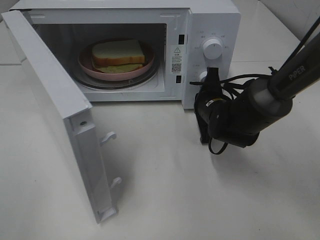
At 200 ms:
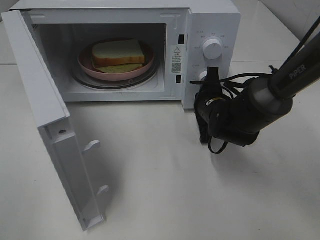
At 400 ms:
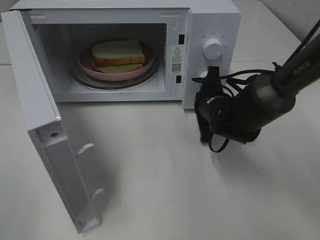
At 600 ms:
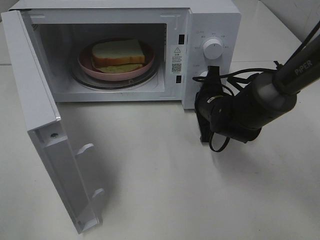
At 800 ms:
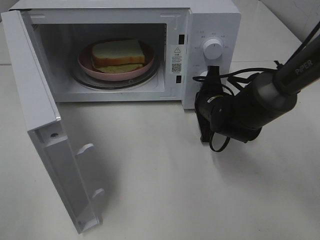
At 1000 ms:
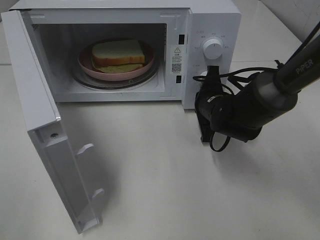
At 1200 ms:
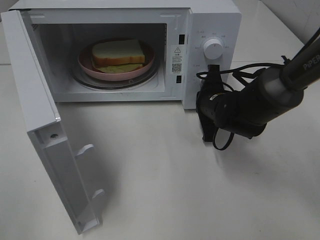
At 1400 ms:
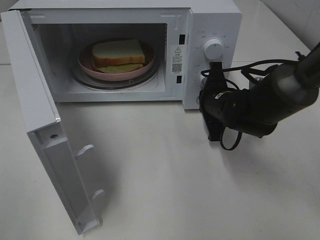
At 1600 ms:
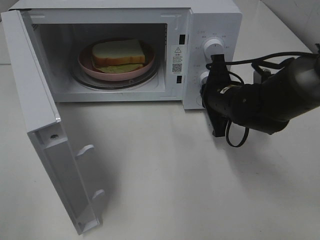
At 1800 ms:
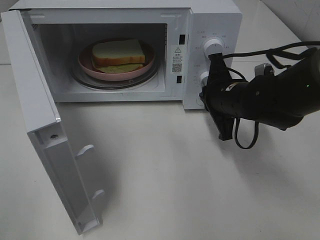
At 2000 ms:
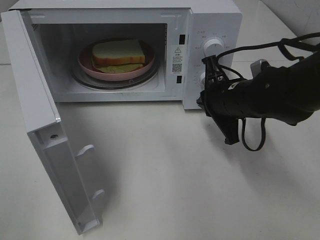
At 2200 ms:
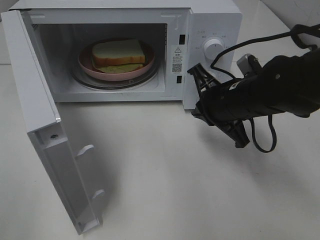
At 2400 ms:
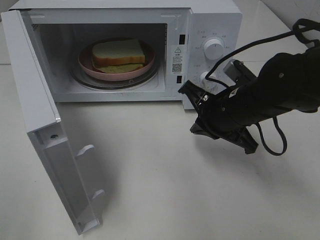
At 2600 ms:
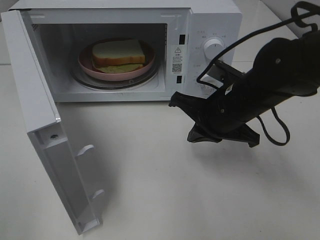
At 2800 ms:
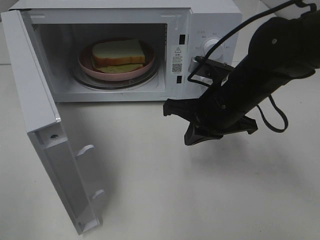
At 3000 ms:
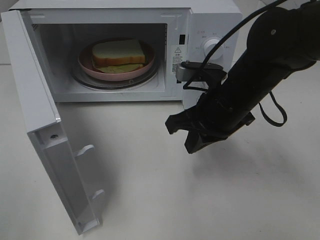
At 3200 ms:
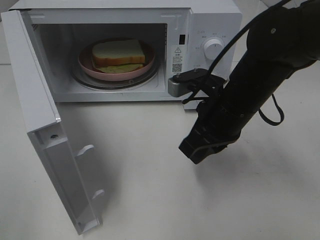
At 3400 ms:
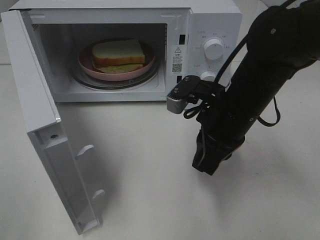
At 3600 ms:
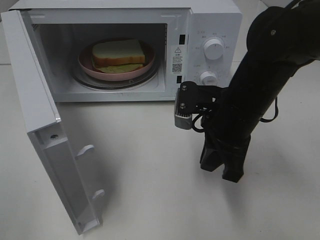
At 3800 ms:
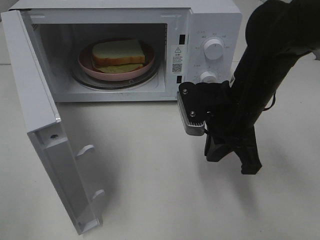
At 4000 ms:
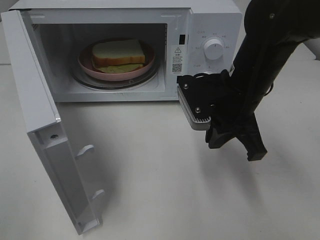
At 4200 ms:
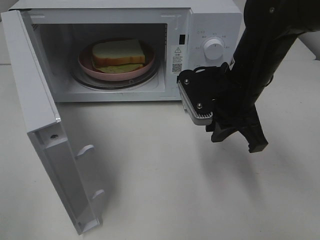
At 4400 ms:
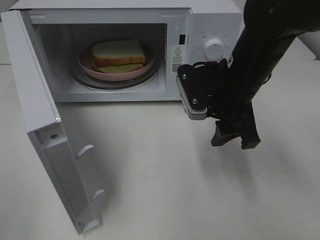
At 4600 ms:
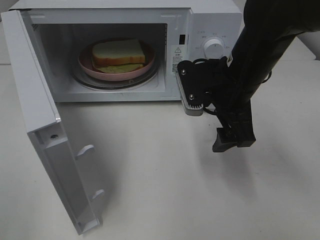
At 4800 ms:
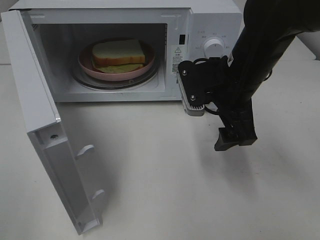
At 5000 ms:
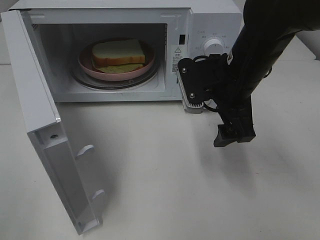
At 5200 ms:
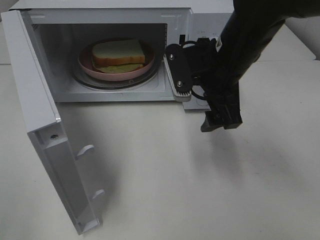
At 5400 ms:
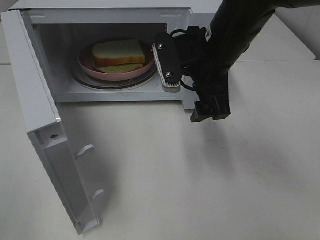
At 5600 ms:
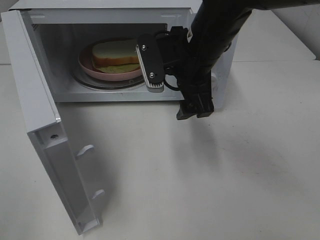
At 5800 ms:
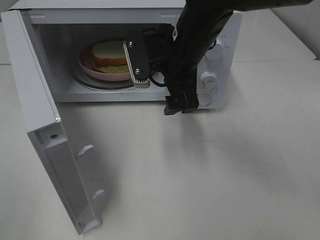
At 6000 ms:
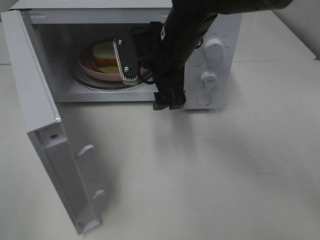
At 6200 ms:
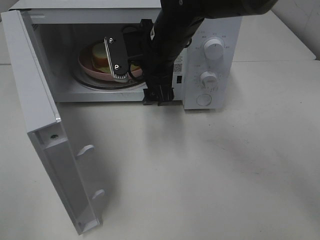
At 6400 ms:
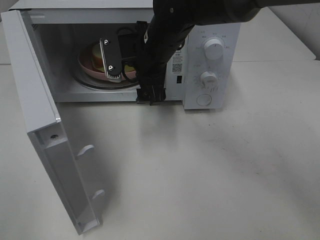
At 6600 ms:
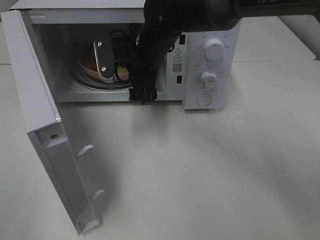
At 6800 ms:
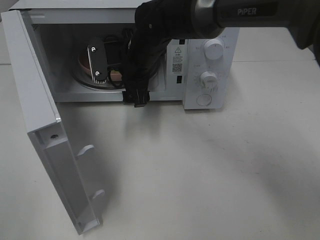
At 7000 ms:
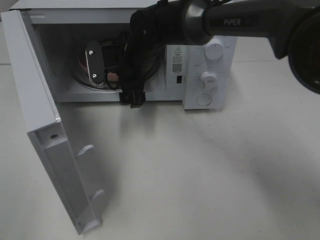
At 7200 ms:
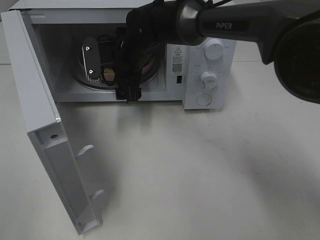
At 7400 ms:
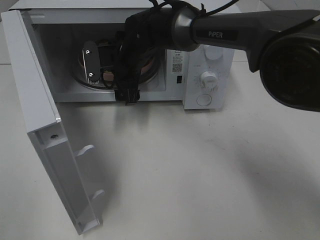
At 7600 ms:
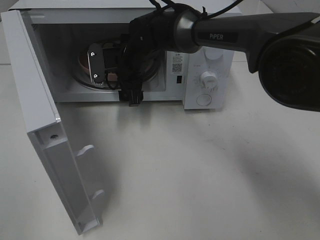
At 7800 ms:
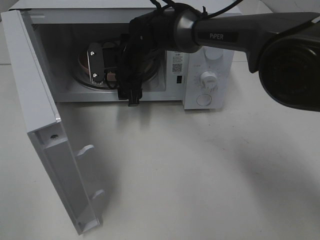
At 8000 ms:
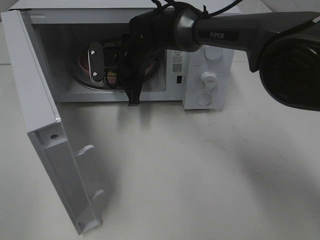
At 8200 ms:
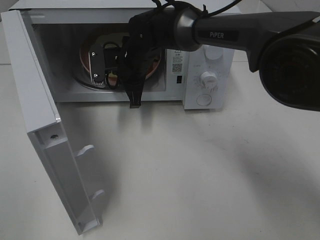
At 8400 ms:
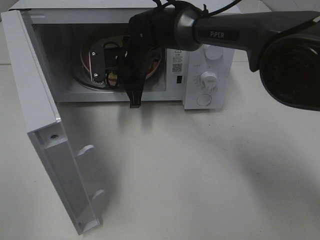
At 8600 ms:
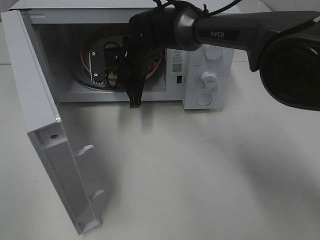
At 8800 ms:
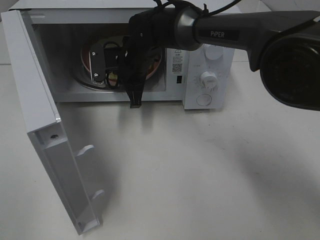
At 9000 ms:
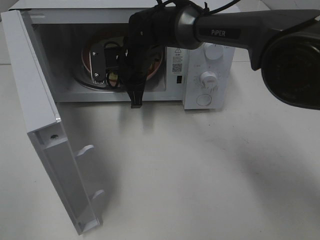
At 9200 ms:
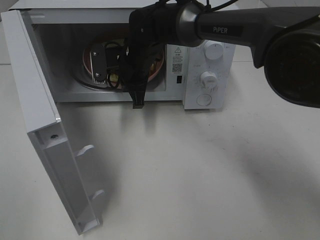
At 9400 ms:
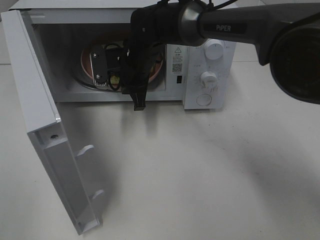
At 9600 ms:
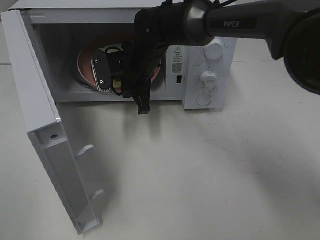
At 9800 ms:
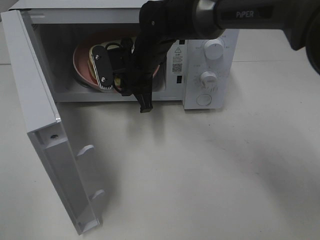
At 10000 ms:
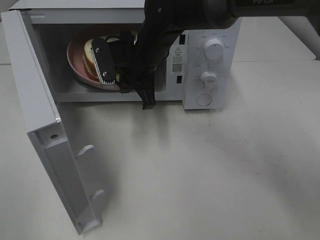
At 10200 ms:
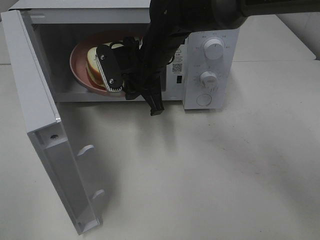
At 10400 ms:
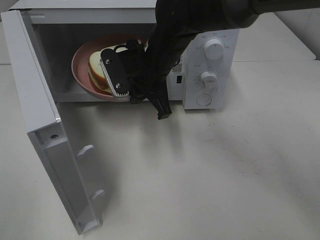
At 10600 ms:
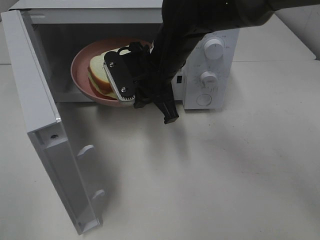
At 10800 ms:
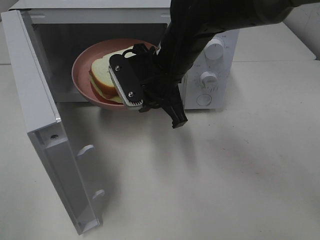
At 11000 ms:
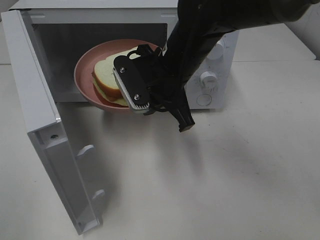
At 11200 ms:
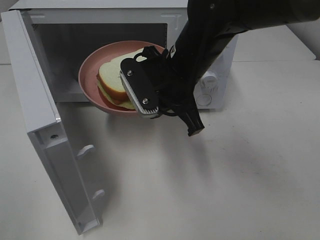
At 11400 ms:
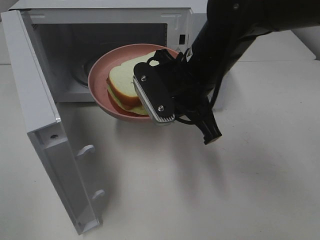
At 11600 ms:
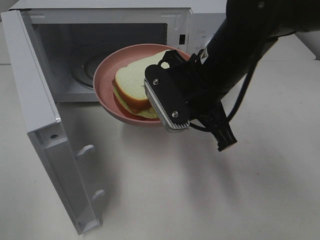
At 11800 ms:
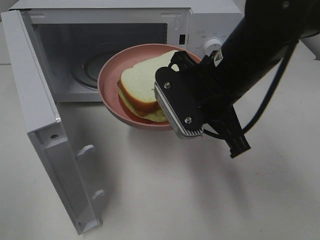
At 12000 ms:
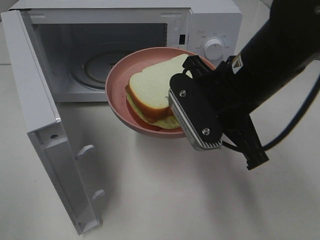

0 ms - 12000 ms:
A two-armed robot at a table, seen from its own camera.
Task of the whole recording: Heat Sandwich.
Step, 1800 ms - 8600 ms: Right hand: grab the plate with the sandwich.
0 ms - 1600 ms: The right gripper shifts by approximately 5 cm.
1600 ms - 3000 ms: The right gripper moves backward and upward, approximately 10 cm.
3000 ms - 4400 ms: The right gripper opens.
4400 ms - 6000 ms: The right gripper heads to the left and forward, covering about 10 cm.
6000 ms - 7600 ms: The right gripper moves forward, downward and to the left, roughly 15 cm.
7600 ms - 9000 ms: The right gripper closes up.
9000 ms - 10400 ms: The right gripper travels backward by some 5 cm.
10400 ms - 12000 ms: The right gripper moves backward and to the right, some 15 cm.

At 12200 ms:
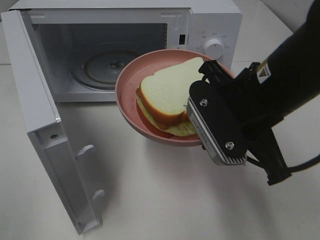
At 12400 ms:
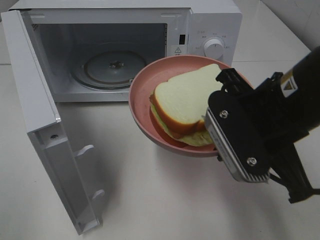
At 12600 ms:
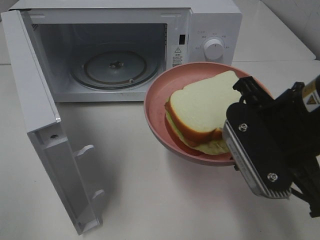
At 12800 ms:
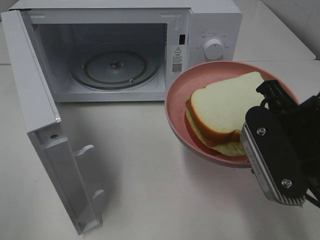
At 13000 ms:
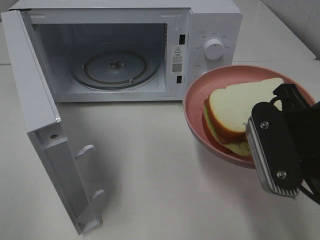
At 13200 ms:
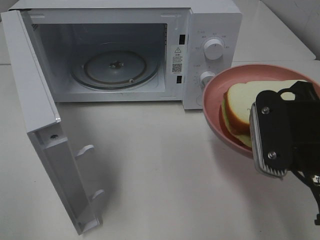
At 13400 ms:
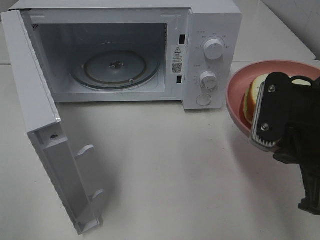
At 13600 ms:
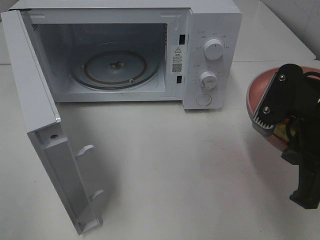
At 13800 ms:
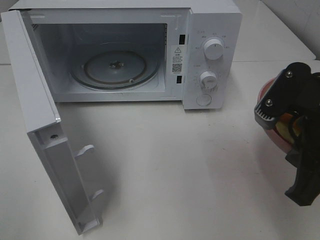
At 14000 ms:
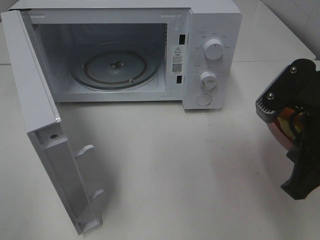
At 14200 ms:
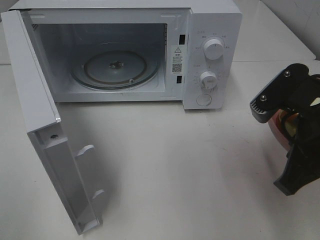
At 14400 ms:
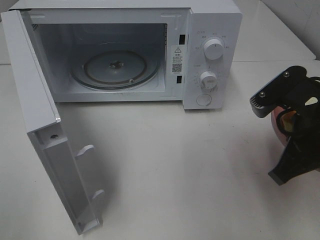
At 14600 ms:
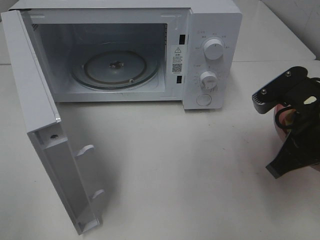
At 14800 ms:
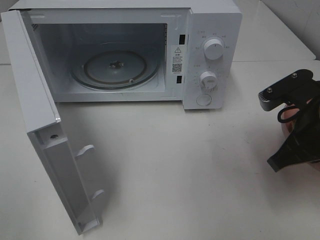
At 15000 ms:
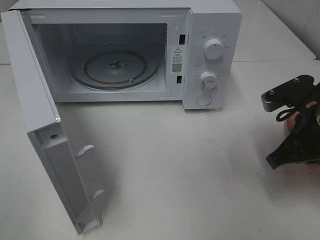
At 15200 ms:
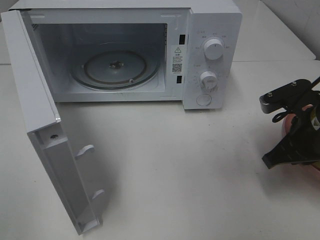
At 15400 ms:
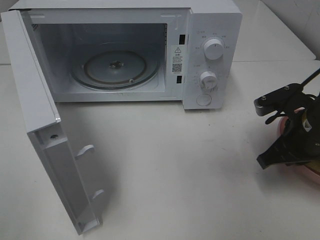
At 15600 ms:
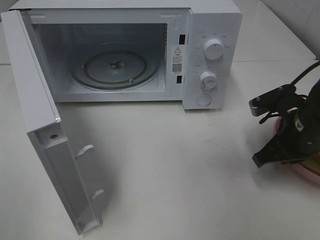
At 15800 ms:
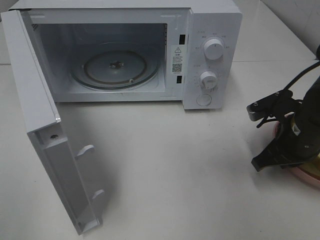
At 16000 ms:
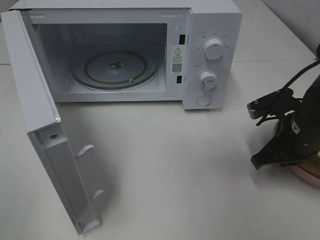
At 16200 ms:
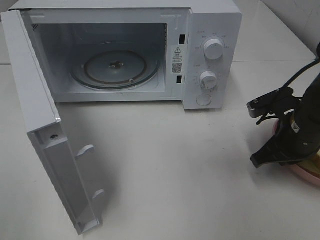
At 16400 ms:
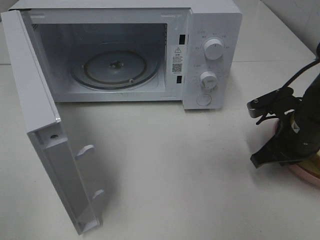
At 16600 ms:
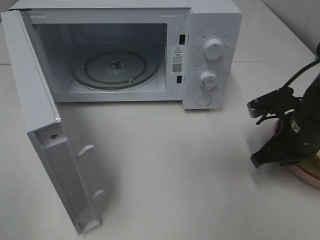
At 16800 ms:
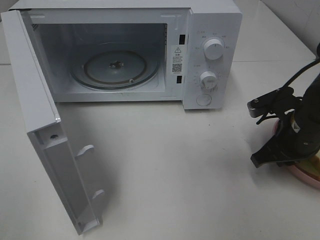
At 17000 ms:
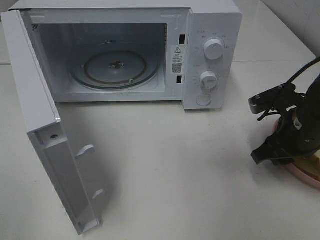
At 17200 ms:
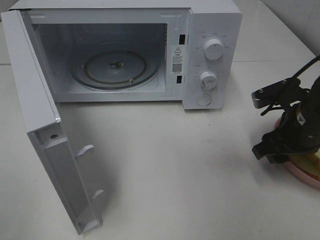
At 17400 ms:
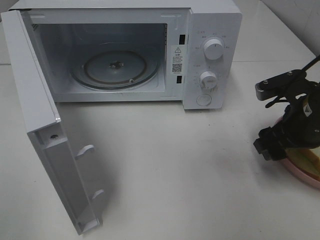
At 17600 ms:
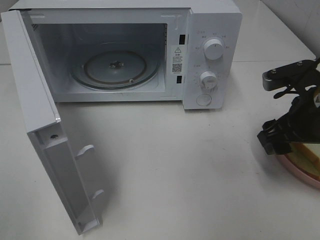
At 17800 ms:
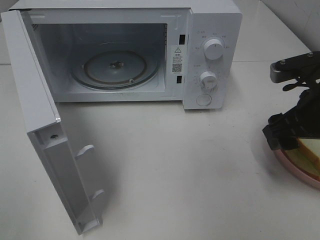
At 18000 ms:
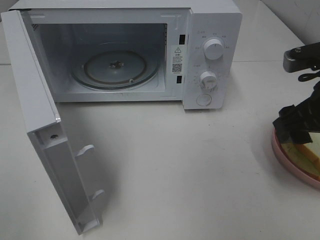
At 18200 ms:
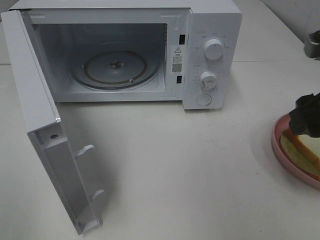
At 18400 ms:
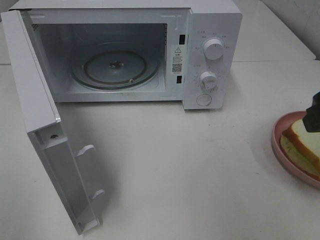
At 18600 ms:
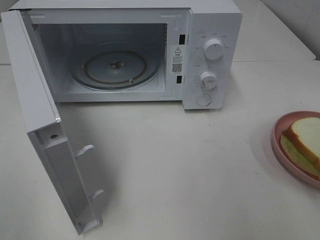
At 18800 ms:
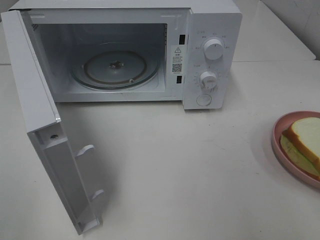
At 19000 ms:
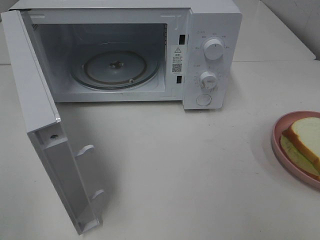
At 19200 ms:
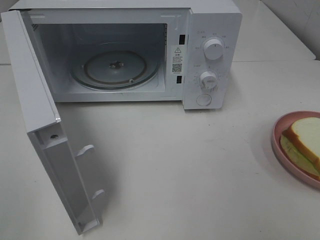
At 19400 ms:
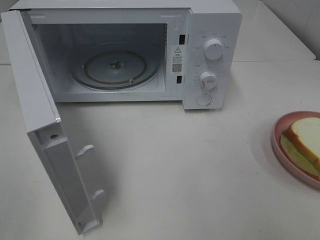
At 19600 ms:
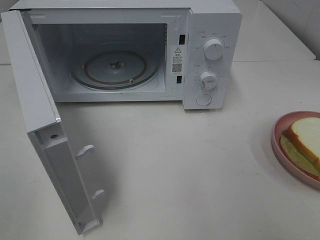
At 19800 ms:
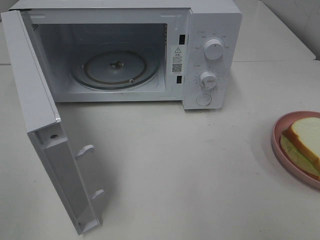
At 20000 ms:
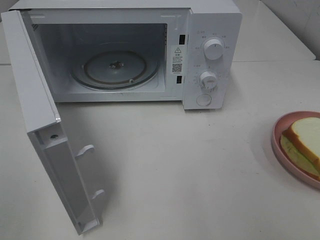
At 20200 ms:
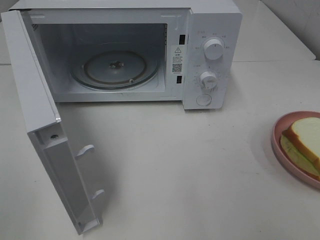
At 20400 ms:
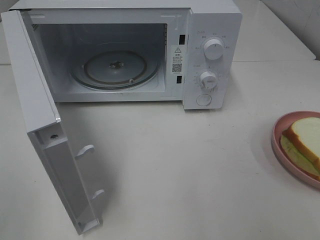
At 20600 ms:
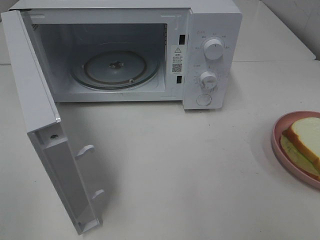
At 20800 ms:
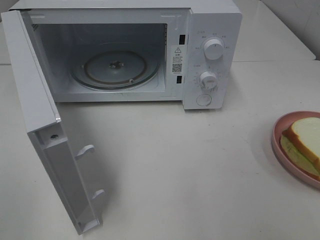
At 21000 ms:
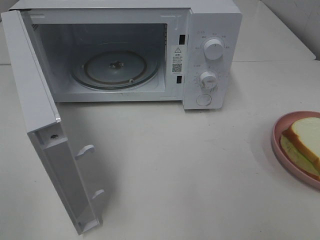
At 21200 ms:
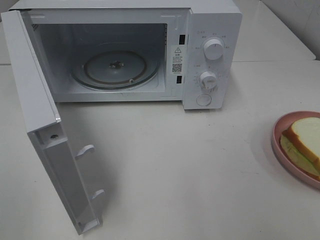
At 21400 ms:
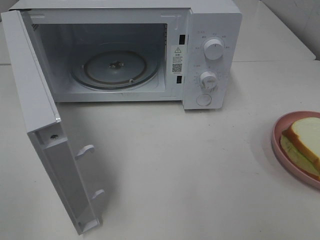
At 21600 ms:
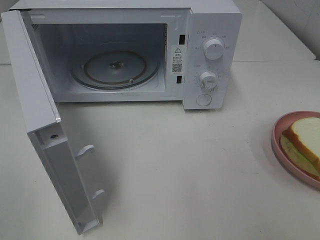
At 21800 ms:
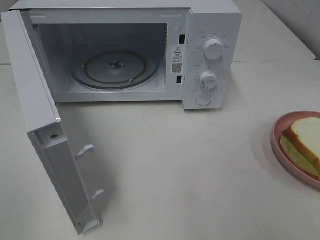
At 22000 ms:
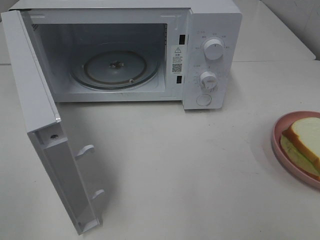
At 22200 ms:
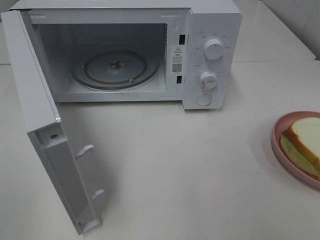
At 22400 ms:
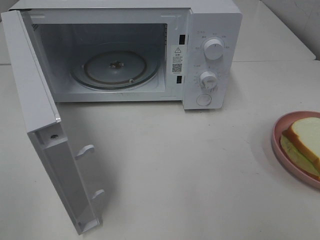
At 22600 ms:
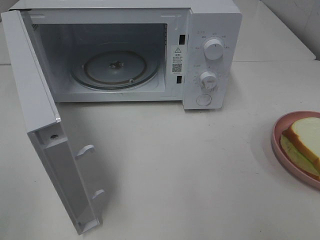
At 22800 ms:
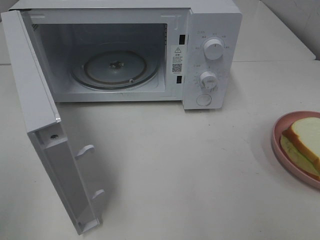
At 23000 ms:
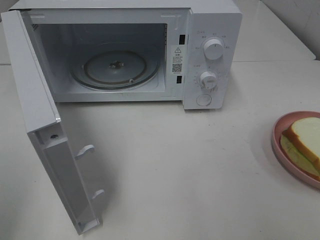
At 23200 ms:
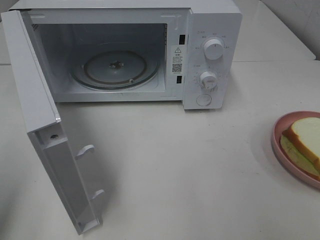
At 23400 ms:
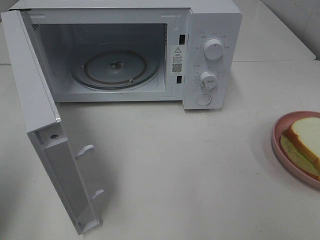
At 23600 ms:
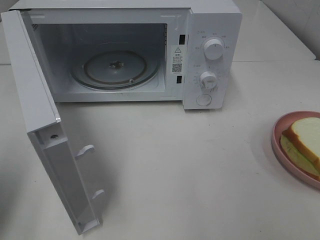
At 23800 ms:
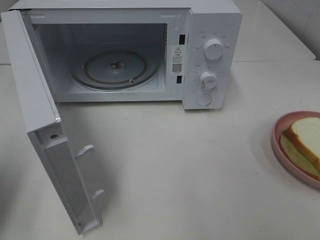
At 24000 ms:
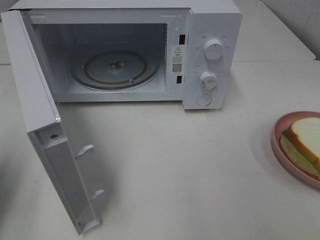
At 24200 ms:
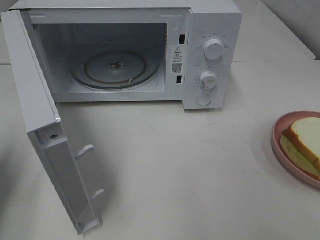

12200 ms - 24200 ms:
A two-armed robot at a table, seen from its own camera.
Task of the whole recording: Heat Sandwich.
Step, 12200 ms - 18200 ms: Right hand: place the plate on the table.
12200 ms - 13800 ms: The right gripper moves to the right, some 5 cm.
13800 ms - 15200 ms: The right gripper moves downward and forward, some 10 cm.
15200 ms - 16600 ms: The grippers move only a little.
16600 ms - 18200 ms: The right gripper shifts approximately 15 cm upward and backward, and opens its fingers.
18200 ms - 19800 ms: The right gripper moves backward, some 20 cm.
22600 ms - 24200 ms: The left gripper moves forward and downward, approximately 20 cm, and closes.
